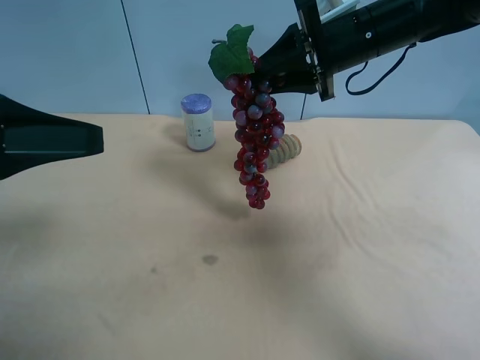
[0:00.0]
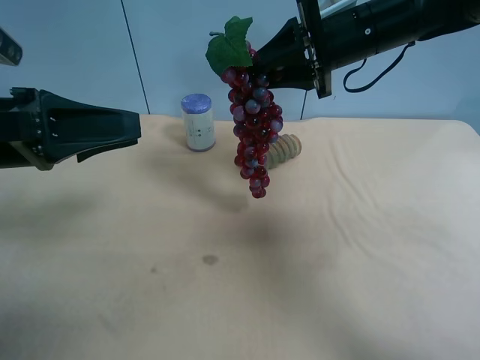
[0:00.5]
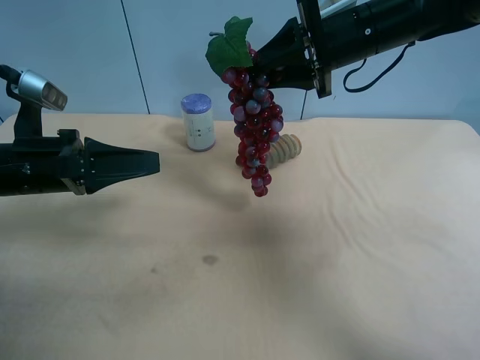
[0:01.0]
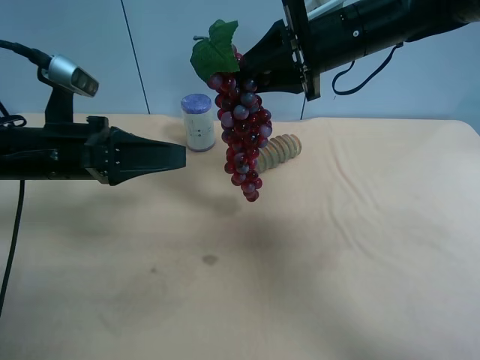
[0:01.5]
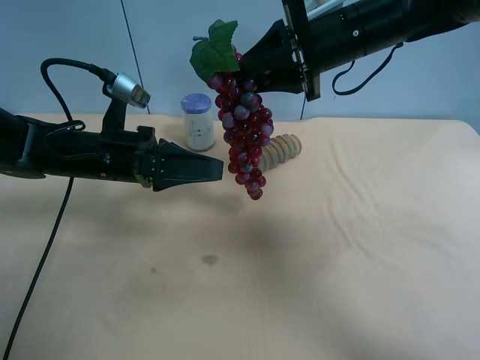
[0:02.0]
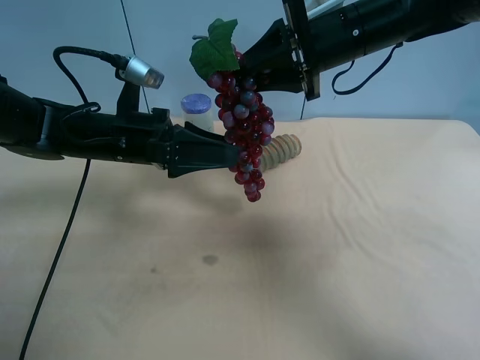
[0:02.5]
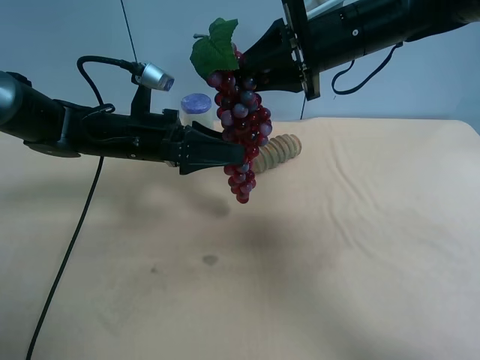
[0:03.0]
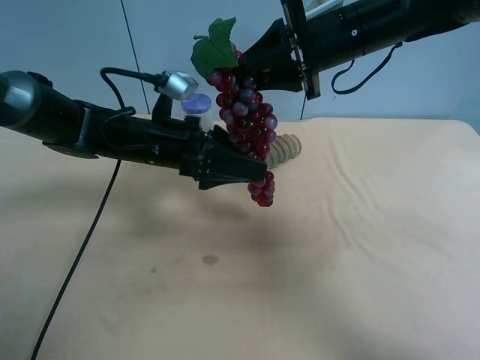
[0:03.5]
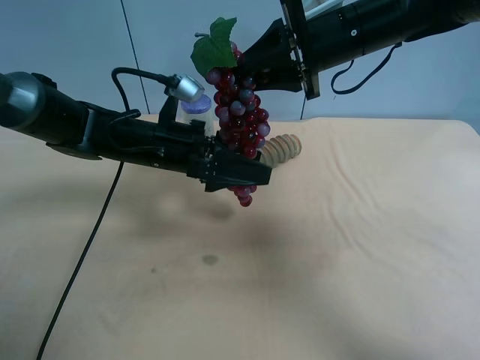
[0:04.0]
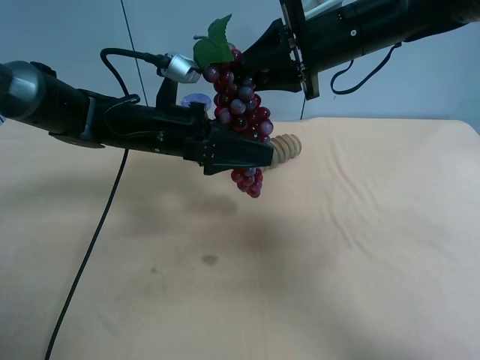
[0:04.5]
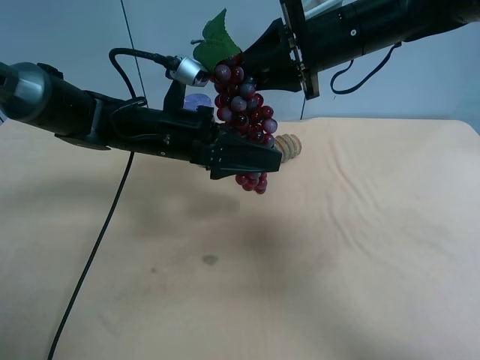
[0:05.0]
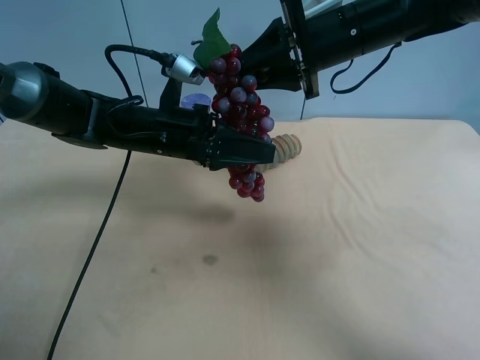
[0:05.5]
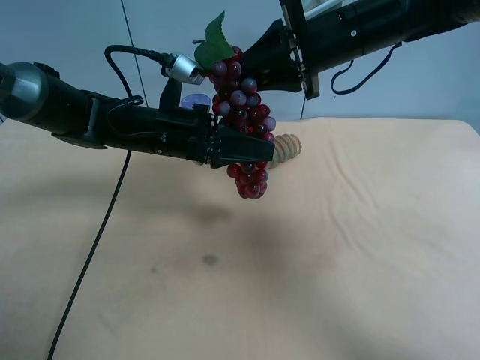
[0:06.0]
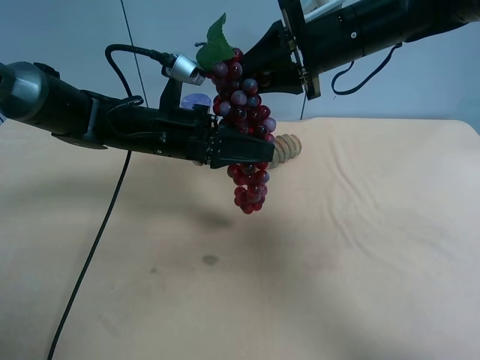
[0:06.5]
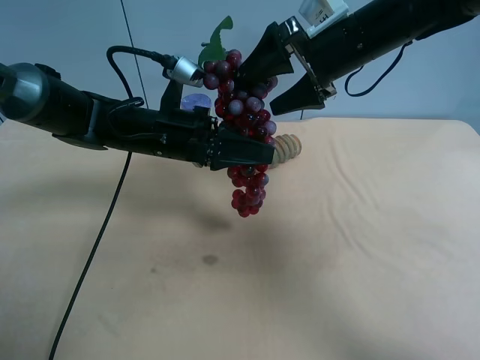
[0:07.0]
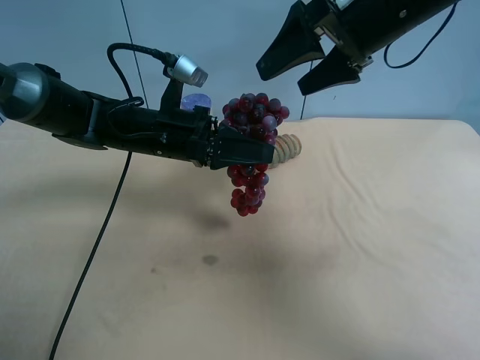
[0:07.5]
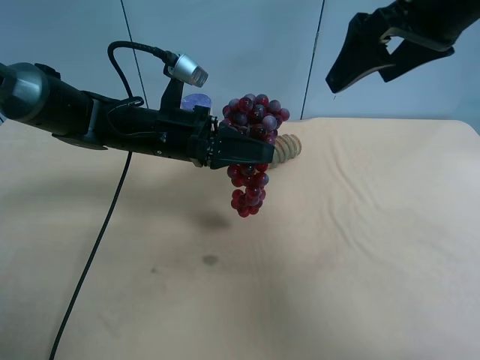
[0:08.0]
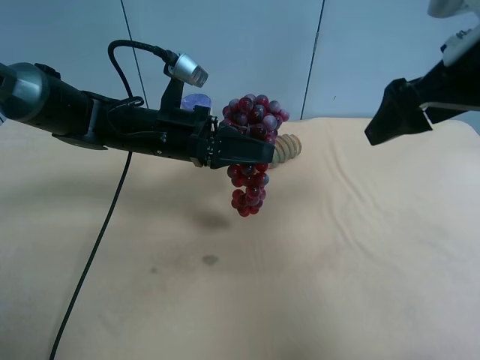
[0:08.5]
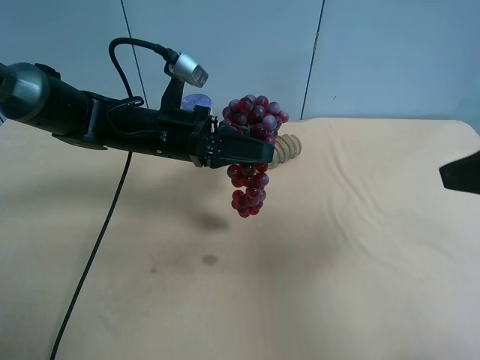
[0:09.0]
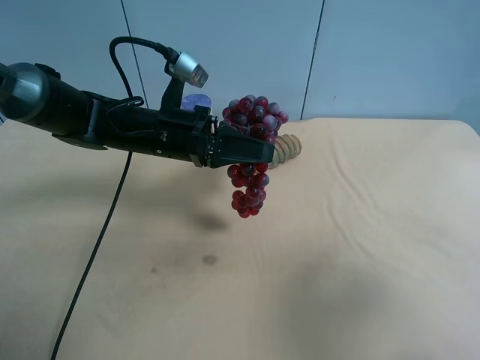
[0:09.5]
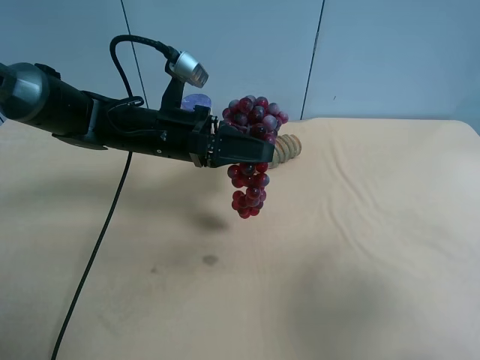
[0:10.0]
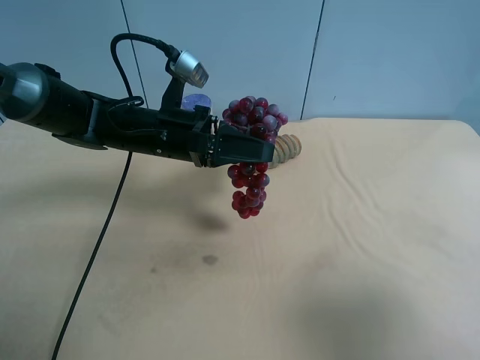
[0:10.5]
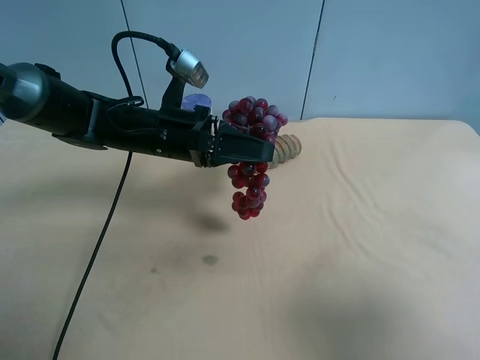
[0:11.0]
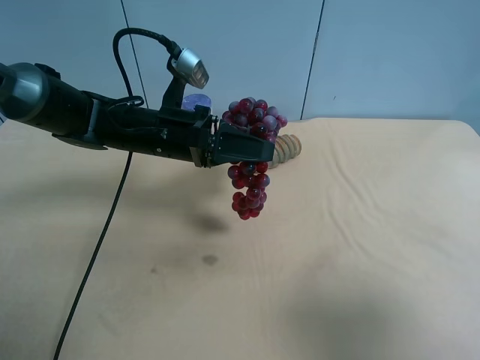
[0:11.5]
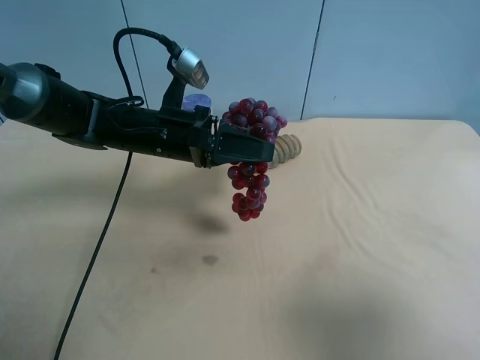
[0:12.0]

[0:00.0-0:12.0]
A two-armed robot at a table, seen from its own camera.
Task of the whole recording: use the right gripper to pick up the item and transfer it from the right gripper to the left gripper.
0:00.0 to 0:02.0: The left gripper moves downward, forward and to the right, roughly 20 cm.
0:02.0 to 0:04.0: The left gripper heads to the right, covering some 5 cm.
0:04.0 to 0:06.0: The left gripper closes.
0:06.0 to 0:08.0: The right gripper heads backward, to the right and upward, covering some 10 cm, and opens up.
0:08.0 to 0:10.0: The right gripper heads backward, covering approximately 25 cm.

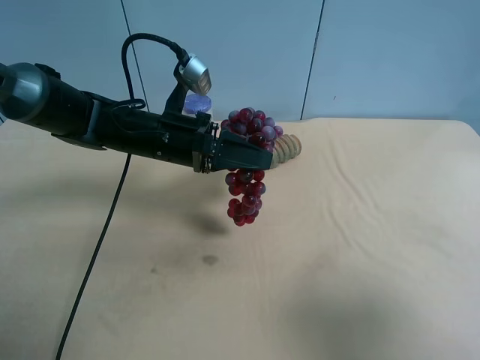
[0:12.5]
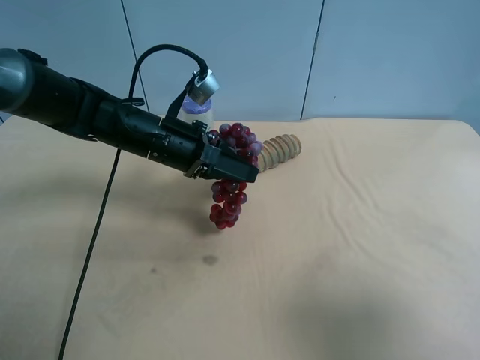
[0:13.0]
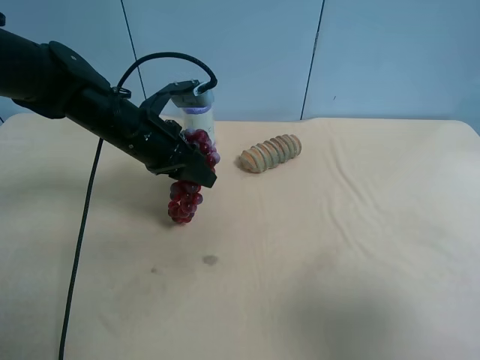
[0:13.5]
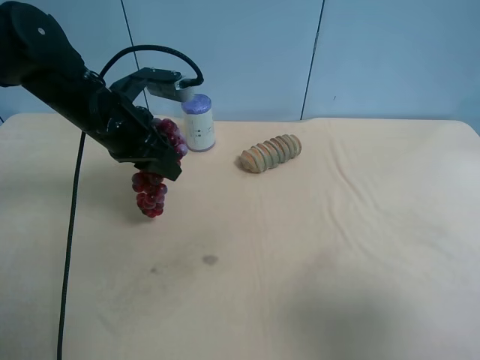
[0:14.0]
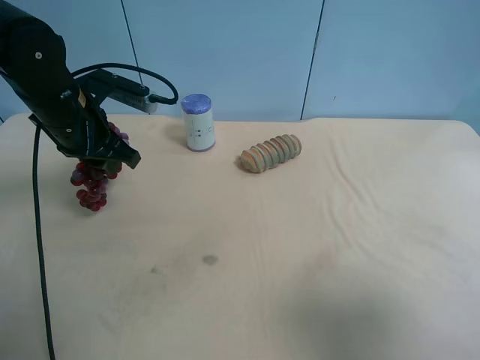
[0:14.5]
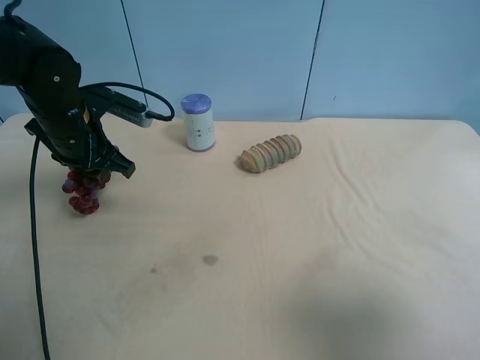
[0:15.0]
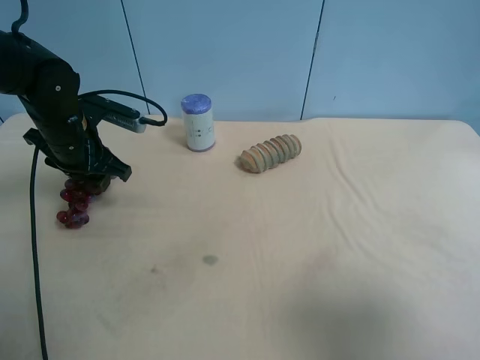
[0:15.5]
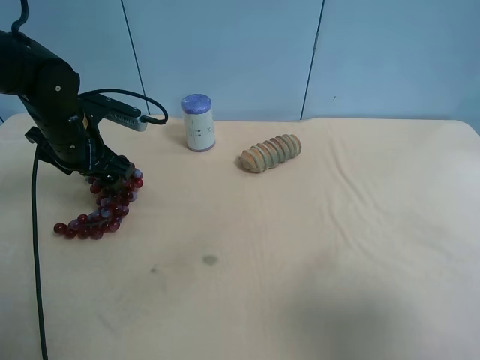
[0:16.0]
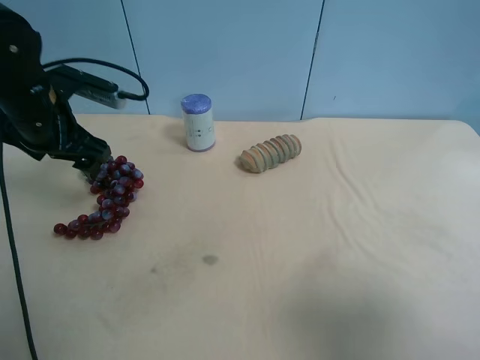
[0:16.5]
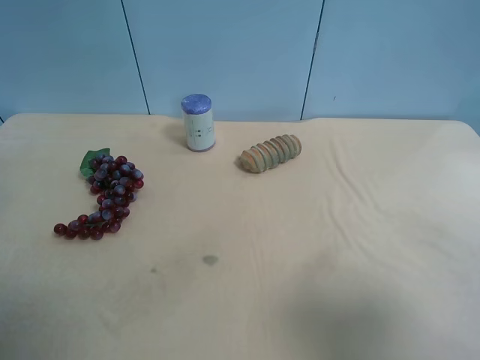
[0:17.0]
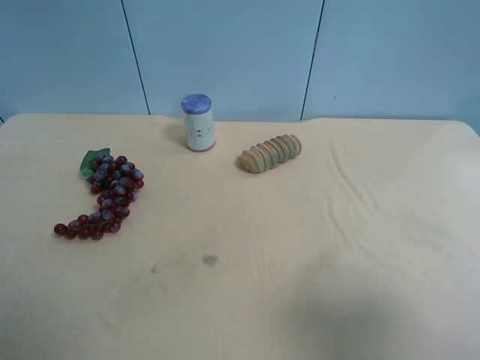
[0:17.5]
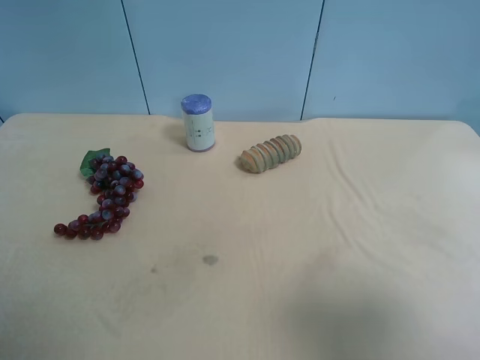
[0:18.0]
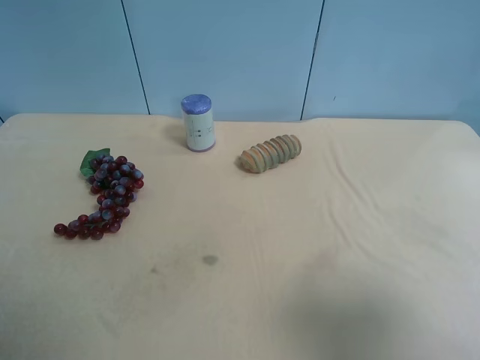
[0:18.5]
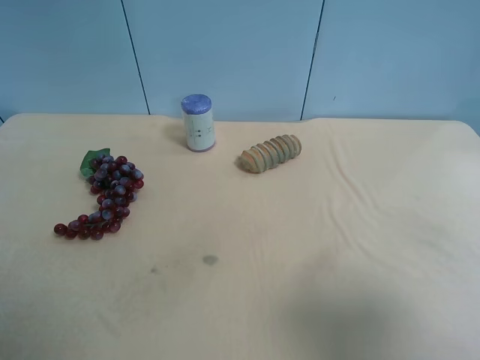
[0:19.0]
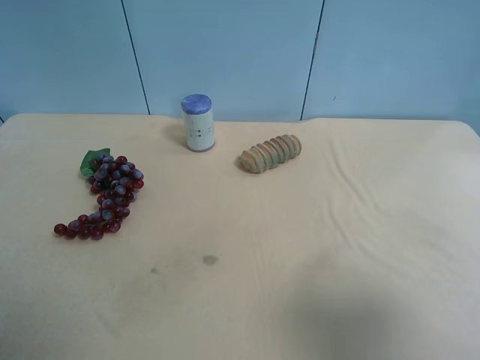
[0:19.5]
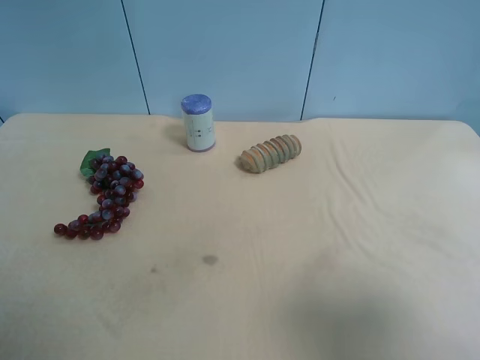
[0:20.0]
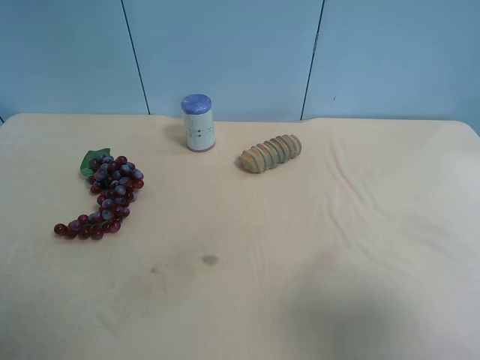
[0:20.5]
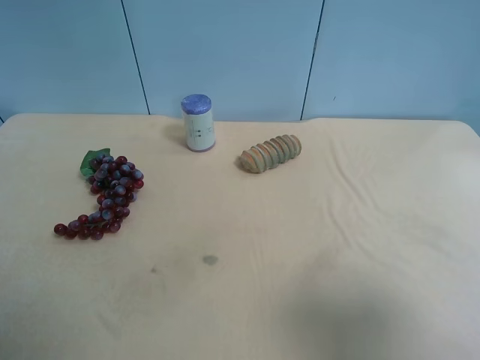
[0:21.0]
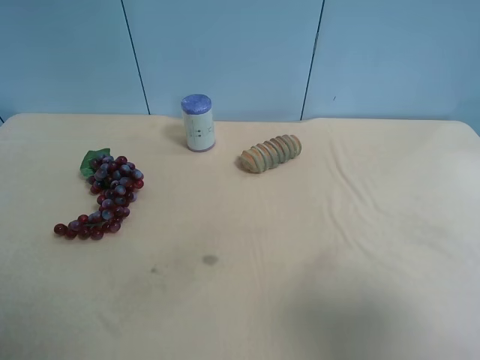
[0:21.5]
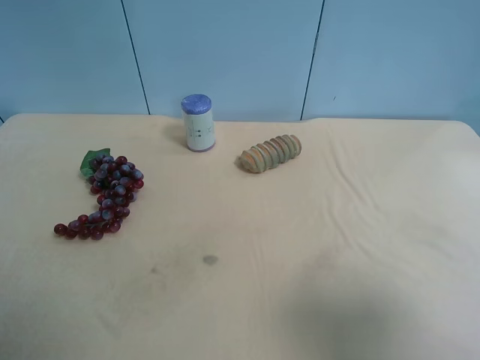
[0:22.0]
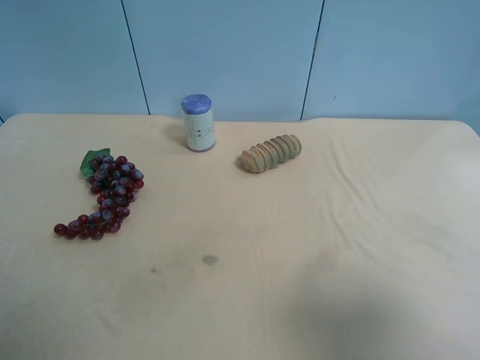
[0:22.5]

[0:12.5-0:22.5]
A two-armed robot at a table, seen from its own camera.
Task of the whole recording: use the right gripper to pick up the item and transfer it from the right gripper to the left gripper.
0:12.5 to 0:14.5: The left gripper shifts about 10 cm to the left and upward.
0:14.5 to 0:16.5: The left gripper opens up.
0:16.5 to 0:18.5: The left gripper shifts approximately 25 cm backward.
0:20.5 to 0:22.5: Both grippers stay put.
